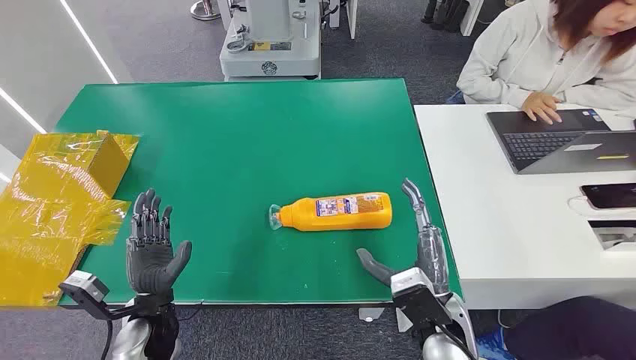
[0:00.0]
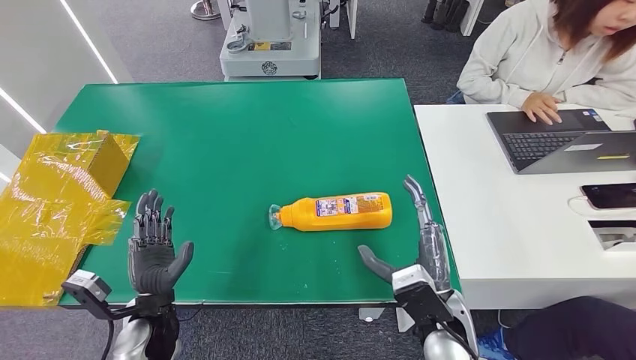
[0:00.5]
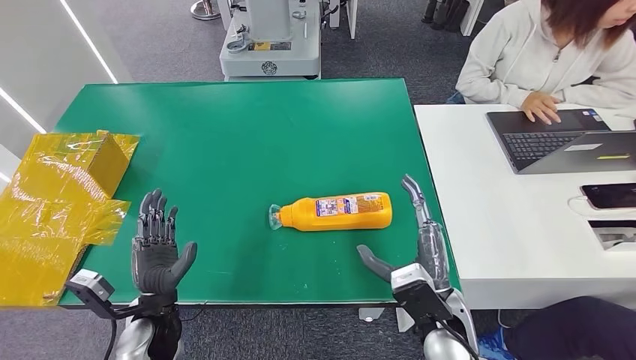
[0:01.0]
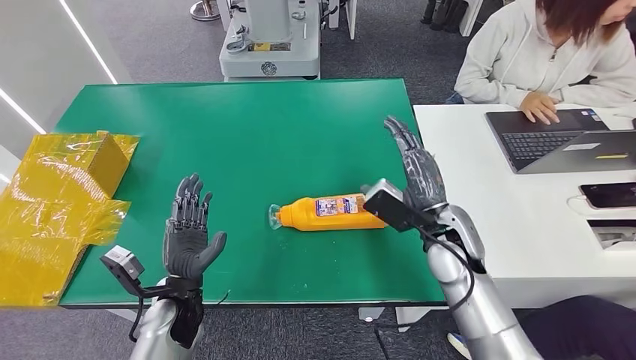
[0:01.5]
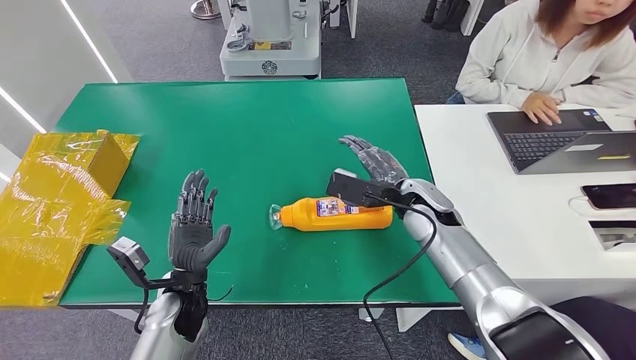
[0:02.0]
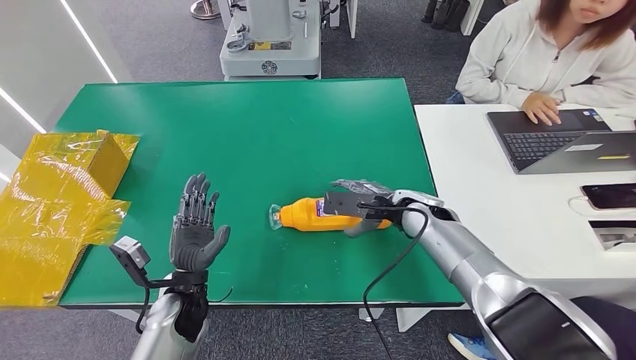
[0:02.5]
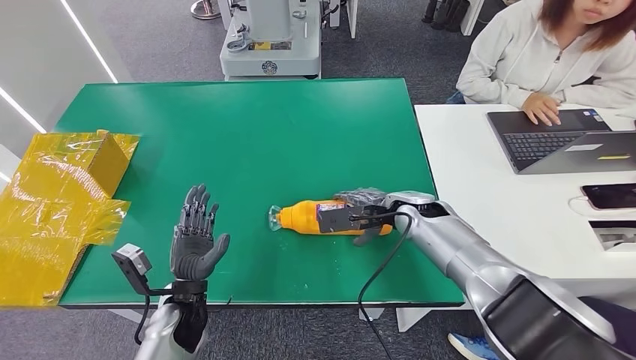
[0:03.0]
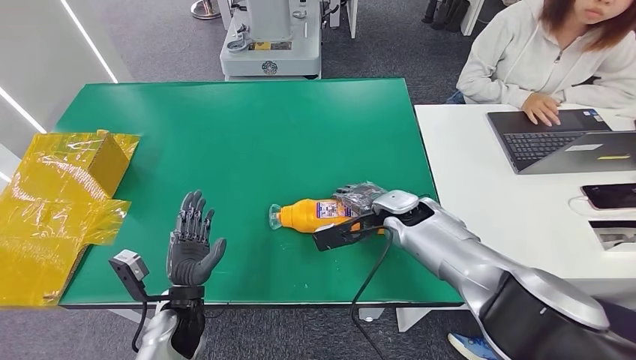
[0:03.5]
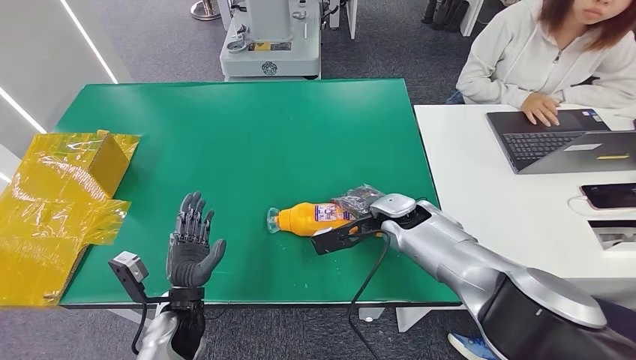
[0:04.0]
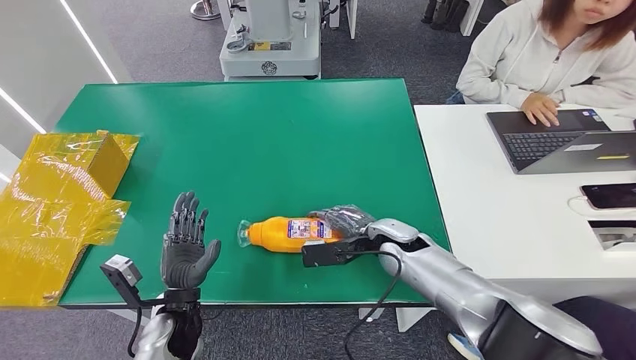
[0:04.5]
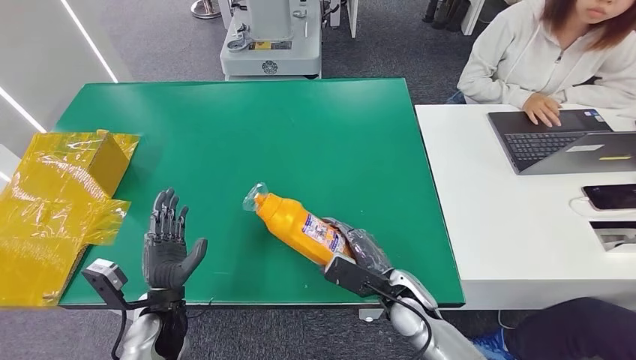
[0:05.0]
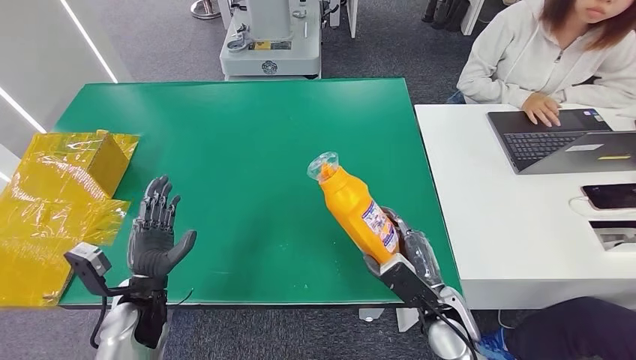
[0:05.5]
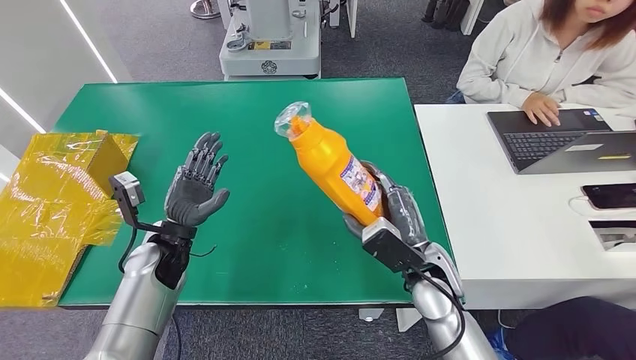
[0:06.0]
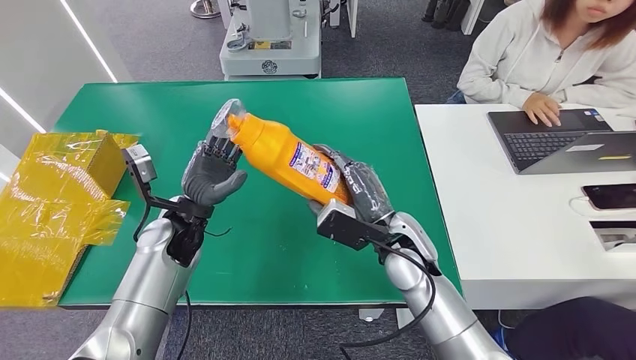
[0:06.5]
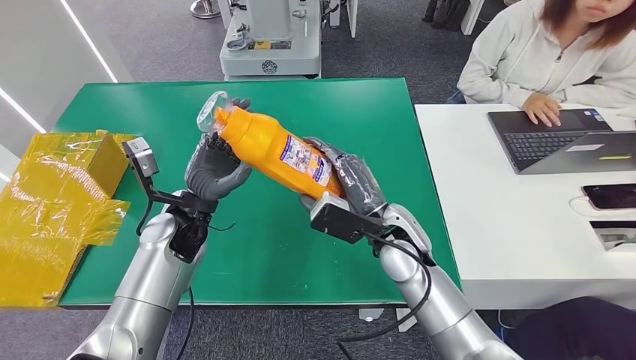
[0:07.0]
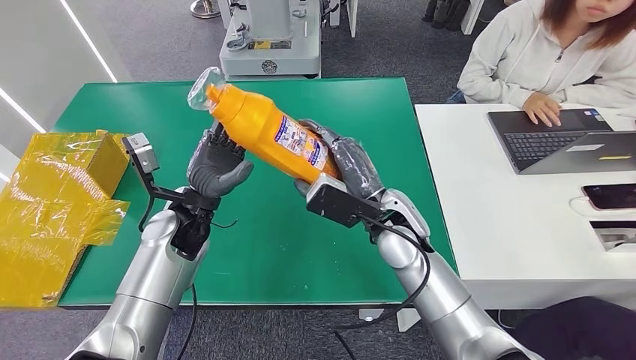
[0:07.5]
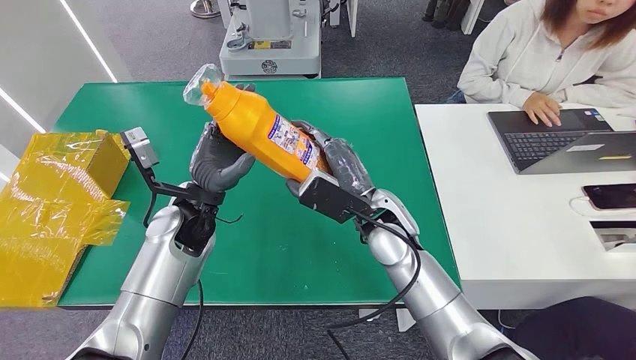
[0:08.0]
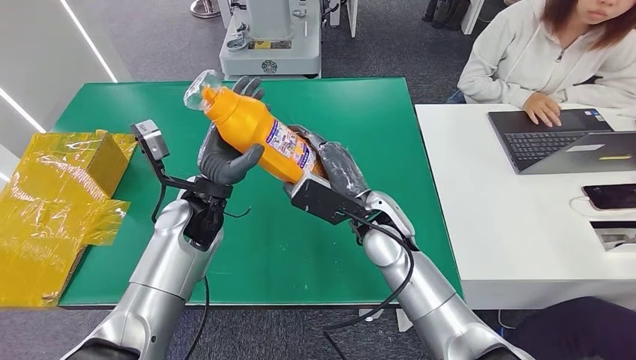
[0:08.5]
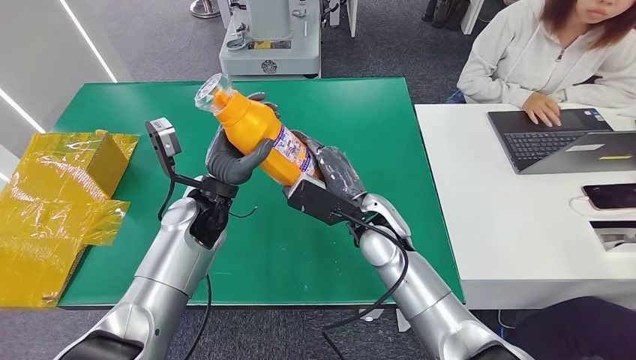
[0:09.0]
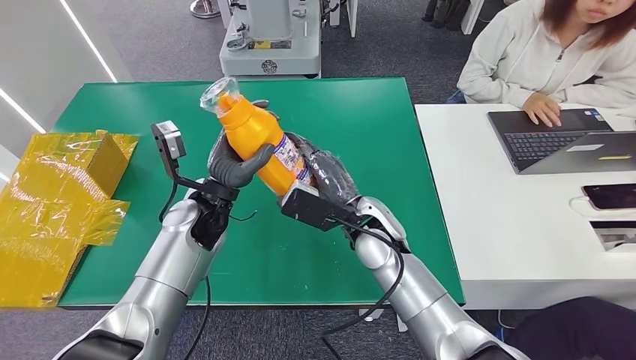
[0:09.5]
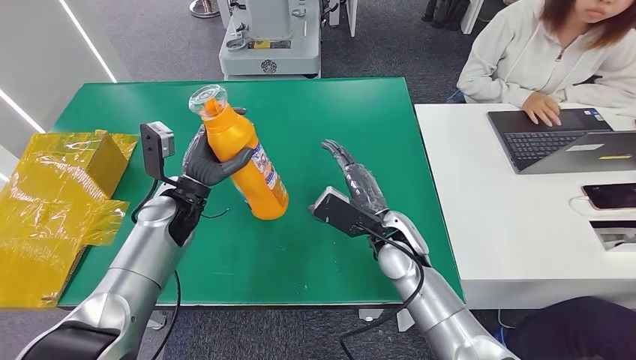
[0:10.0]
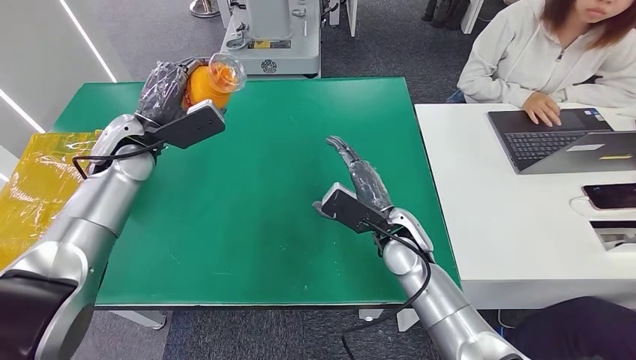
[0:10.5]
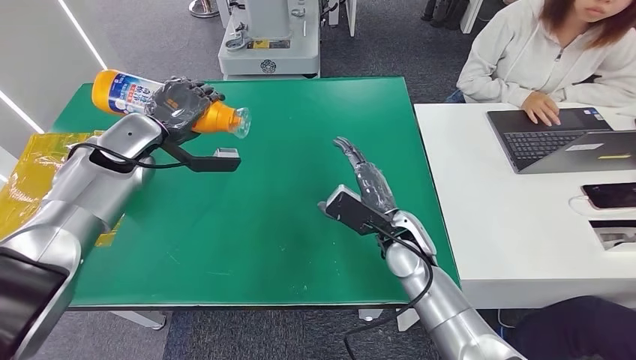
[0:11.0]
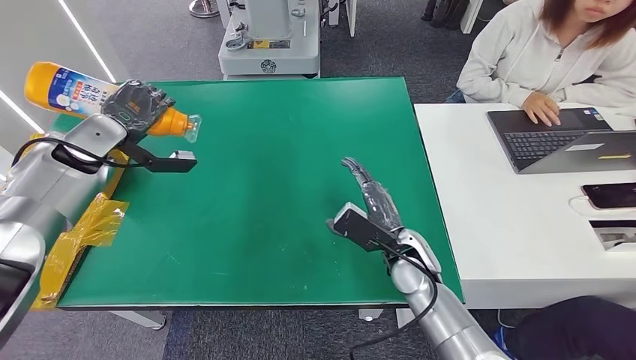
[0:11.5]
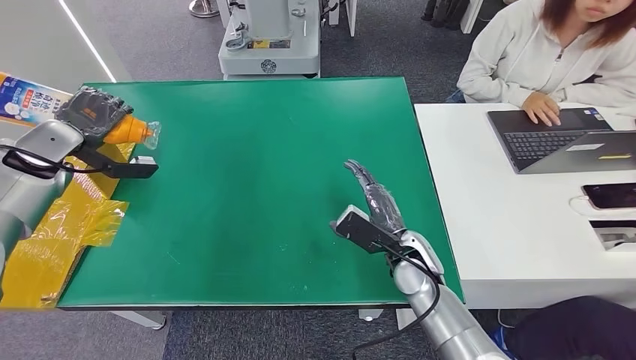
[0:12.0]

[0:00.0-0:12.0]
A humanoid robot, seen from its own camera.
Step, 0:00.0 to 0:06.0: Pick up the bottle from the table.
0:04.0 to 0:06.0: The left hand travels forward and upward by roughly 10 cm; the right hand goes about 10 cm backward.
0:06.0 to 0:08.0: The right hand is displaced to the left, upward and forward by roughly 10 cm; the left hand goes roughly 10 cm upward and to the right.
0:08.0 to 0:10.0: The left hand is displaced to the left by roughly 5 cm. Meanwhile the right hand moves downward, about 5 cm.
0:10.0 to 0:12.0: The right hand changes place by roughly 5 cm. Meanwhile the left hand heads to the left and upward, covering about 25 cm.

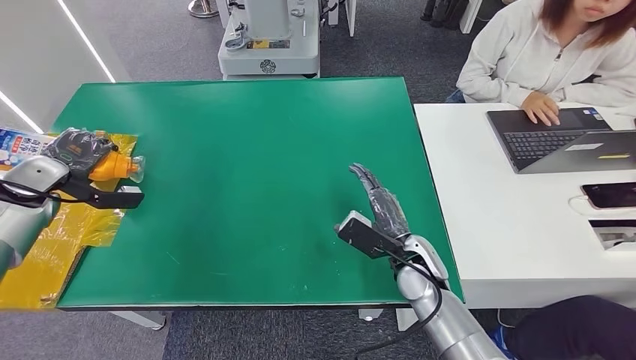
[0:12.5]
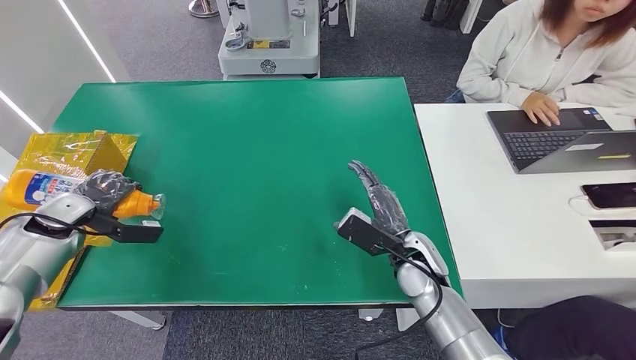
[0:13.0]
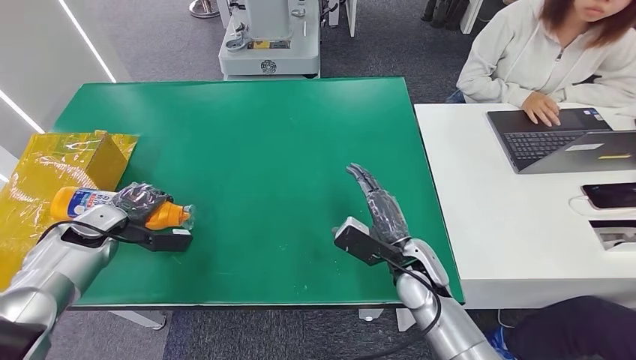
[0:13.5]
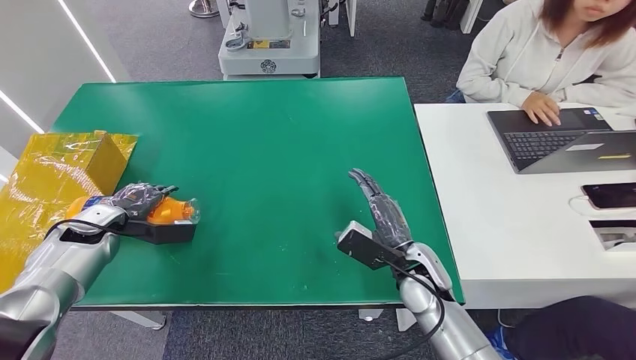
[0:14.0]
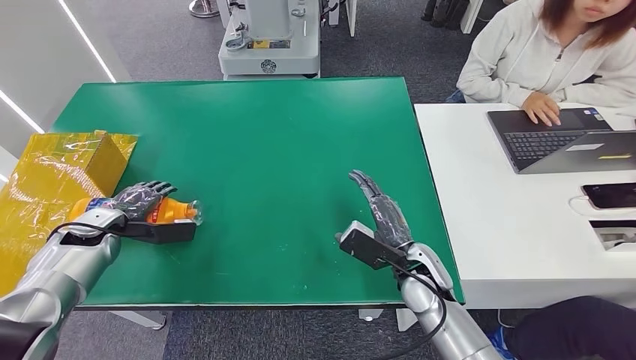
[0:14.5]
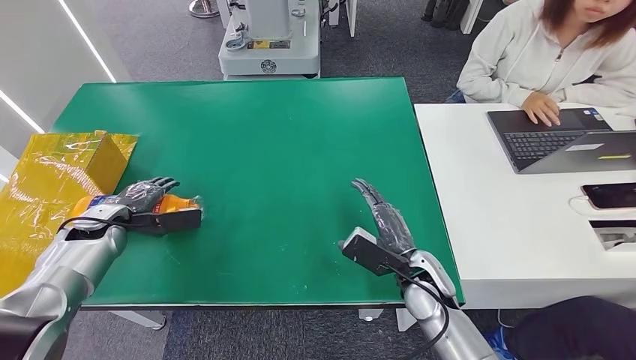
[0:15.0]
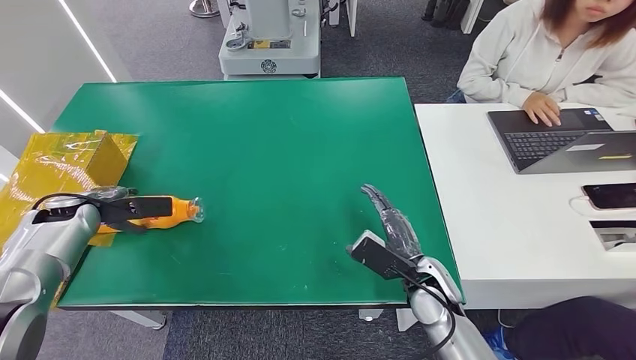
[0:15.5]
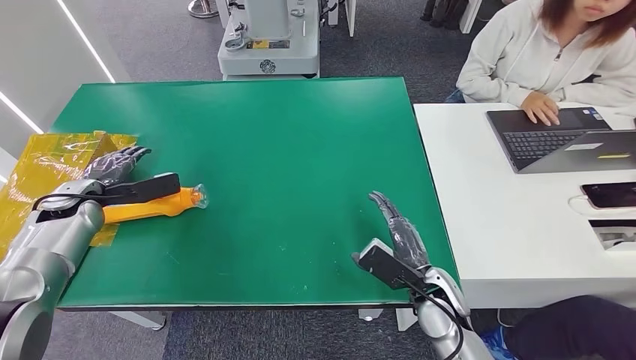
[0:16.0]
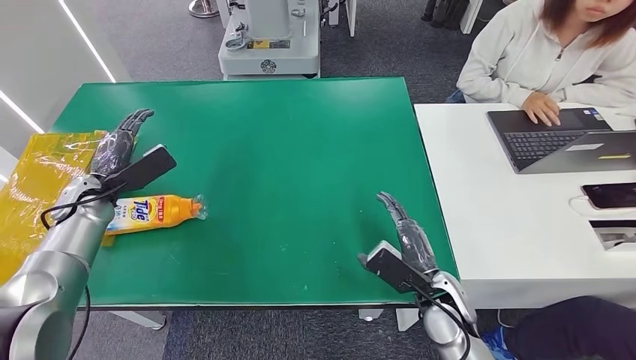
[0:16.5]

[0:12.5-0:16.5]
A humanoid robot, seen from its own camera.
Step, 0:12.5 to 0:16.5: Turn the bottle to the front side.
0:12.5 to 0:14.5: The left hand shifts approximately 15 cm downward and to the right.
0:14.5 to 0:16.5: The right hand ends up some 5 cm from where it was, while the left hand heads upward, covering roughly 5 cm.
